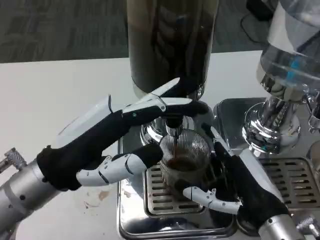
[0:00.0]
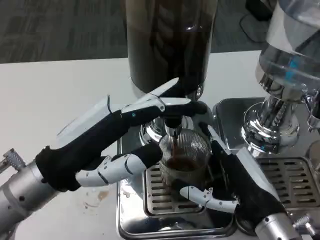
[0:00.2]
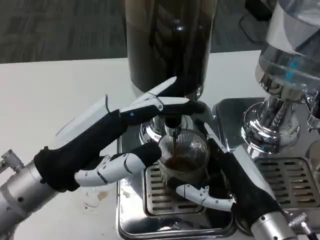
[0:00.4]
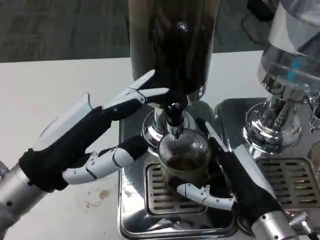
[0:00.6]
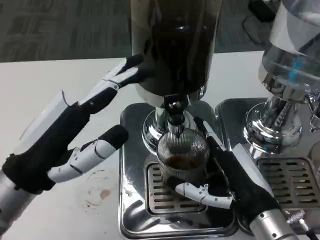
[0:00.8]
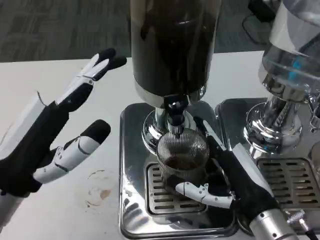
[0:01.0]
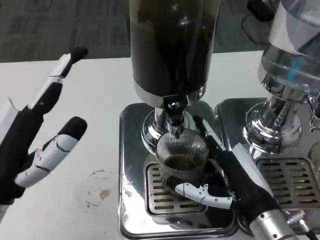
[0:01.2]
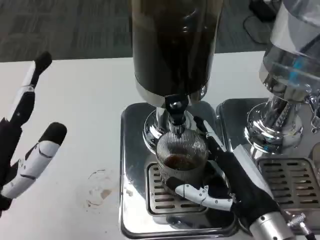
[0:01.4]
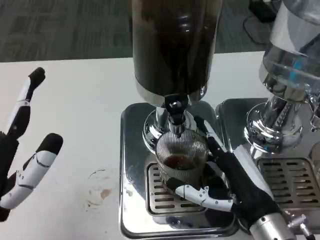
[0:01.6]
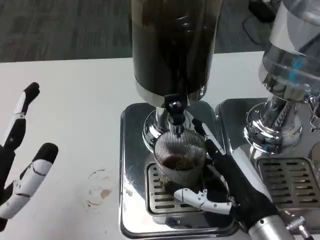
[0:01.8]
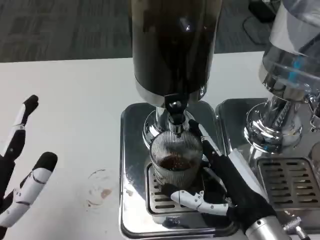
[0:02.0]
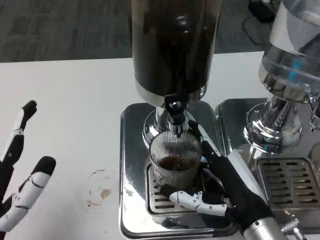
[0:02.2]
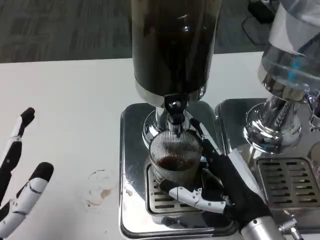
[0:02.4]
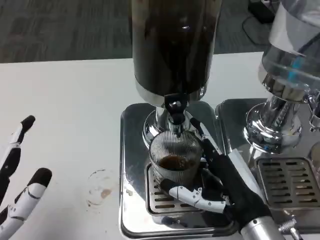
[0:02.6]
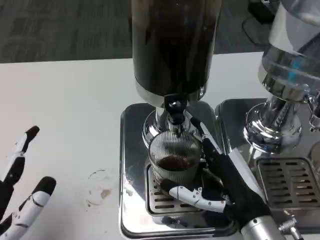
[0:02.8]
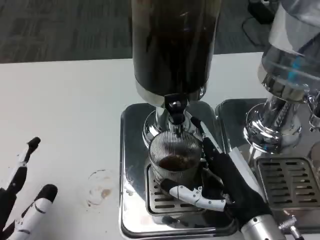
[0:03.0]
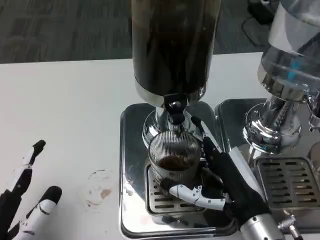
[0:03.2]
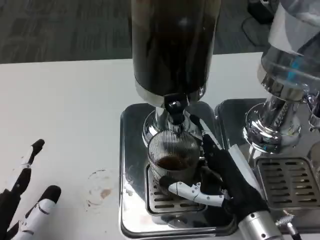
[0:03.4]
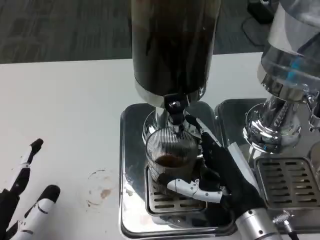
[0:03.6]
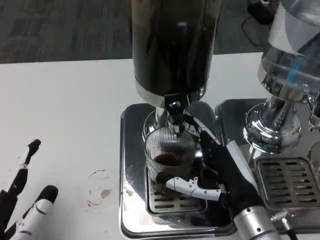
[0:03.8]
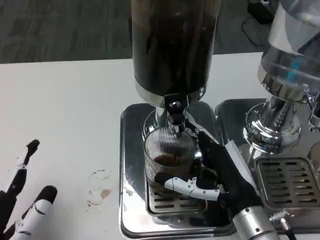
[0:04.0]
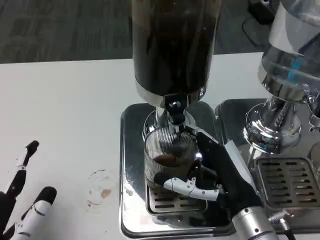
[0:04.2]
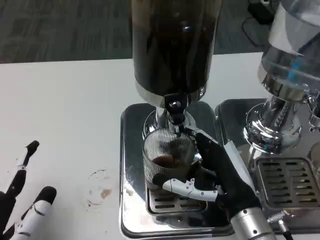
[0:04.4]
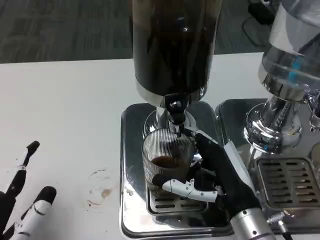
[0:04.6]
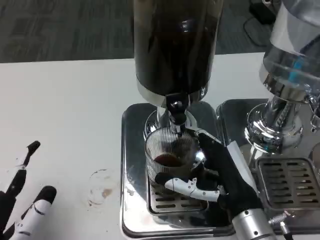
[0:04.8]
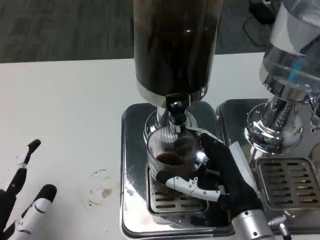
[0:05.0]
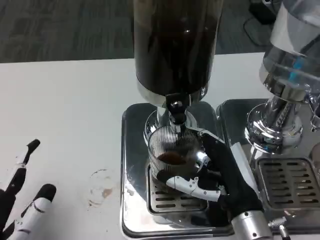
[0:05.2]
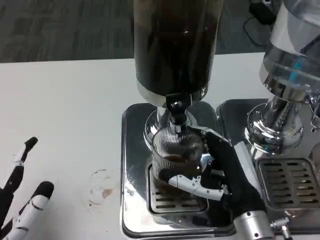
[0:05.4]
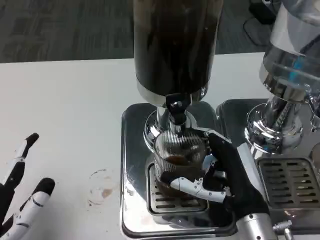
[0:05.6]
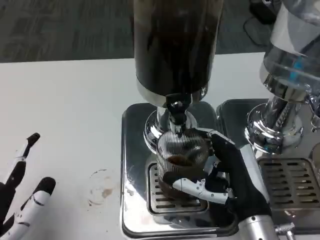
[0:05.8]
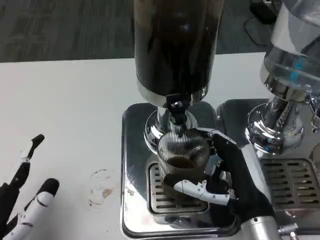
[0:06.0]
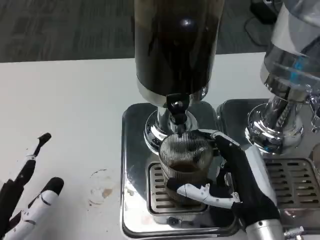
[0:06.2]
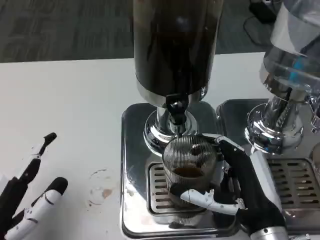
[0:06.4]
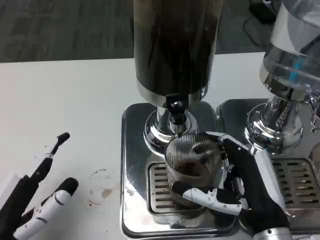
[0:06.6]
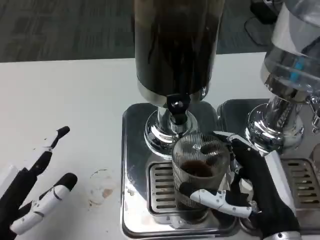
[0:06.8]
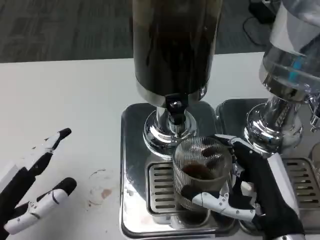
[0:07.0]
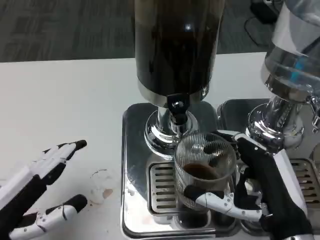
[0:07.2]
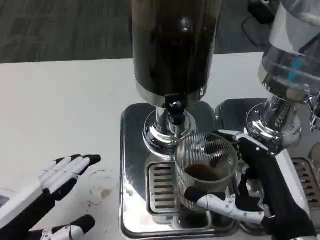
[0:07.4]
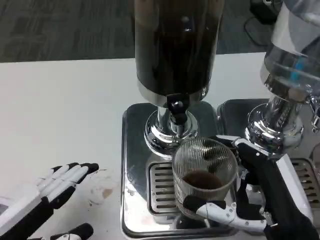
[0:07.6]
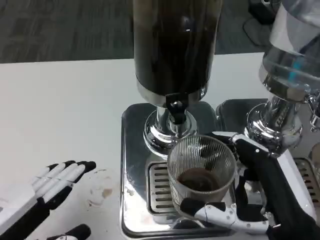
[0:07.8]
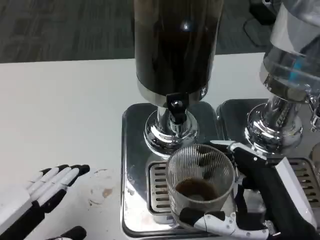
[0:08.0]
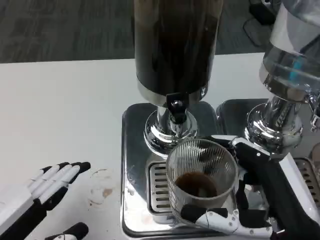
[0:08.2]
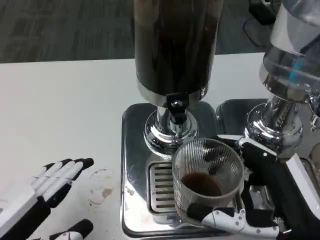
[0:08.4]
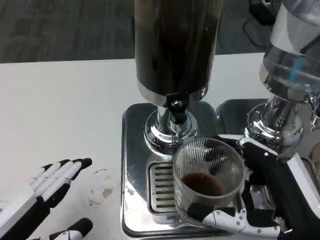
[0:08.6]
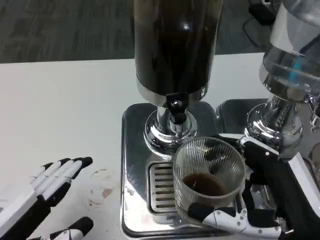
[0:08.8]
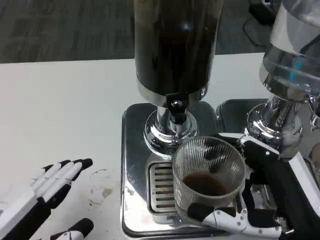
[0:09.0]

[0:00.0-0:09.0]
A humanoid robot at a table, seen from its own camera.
Task of the whole recording: Grasp the cup under the faucet to collect the drink, then remove the cup.
0:00.0 to 0:01.6: The left hand travels backward by some 10 cm.
0:01.6 to 0:03.0: The left hand ends up some 5 cm from where it was.
0:03.0 to 0:06.0: The hands move only a little.
0:06.0 to 0:07.6: The right hand heads backward, covering roughly 5 cm; the left hand changes place by approximately 5 cm.
0:07.6 to 0:09.0: The hands move only a little.

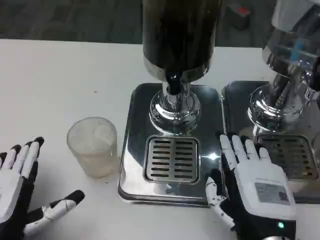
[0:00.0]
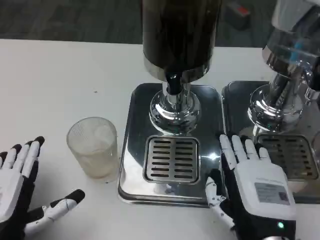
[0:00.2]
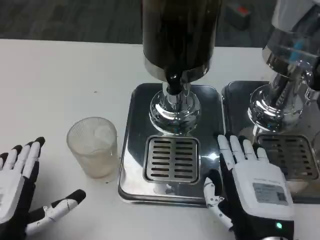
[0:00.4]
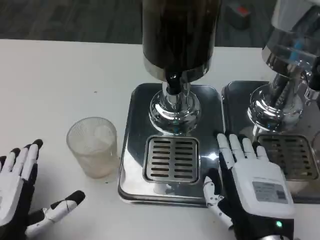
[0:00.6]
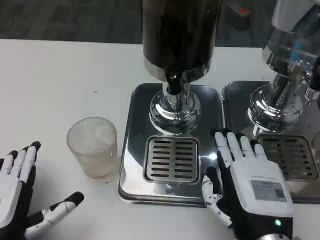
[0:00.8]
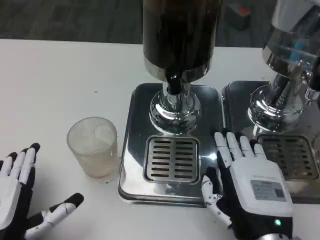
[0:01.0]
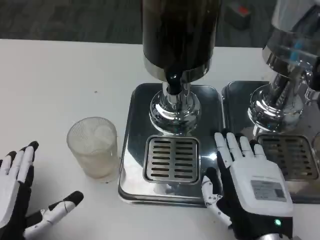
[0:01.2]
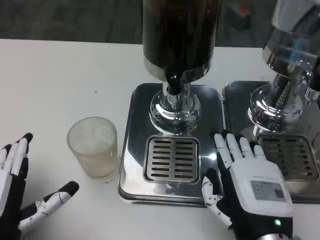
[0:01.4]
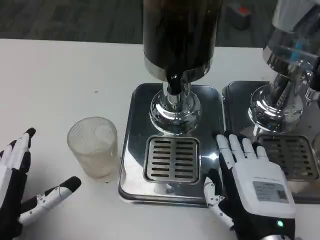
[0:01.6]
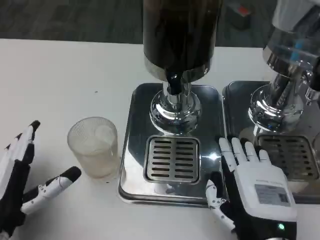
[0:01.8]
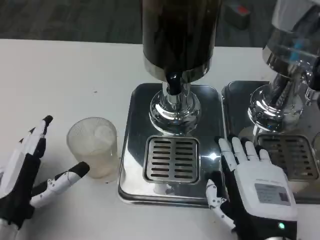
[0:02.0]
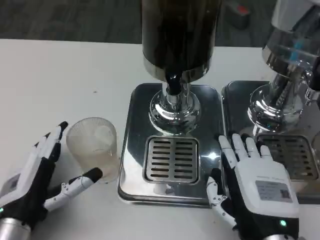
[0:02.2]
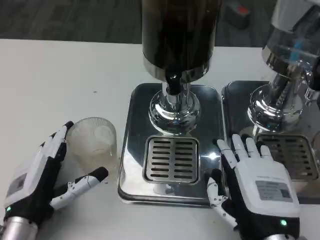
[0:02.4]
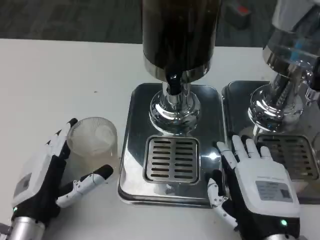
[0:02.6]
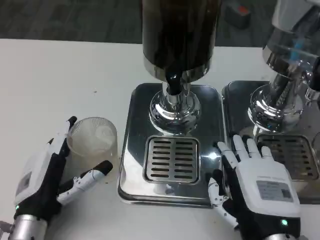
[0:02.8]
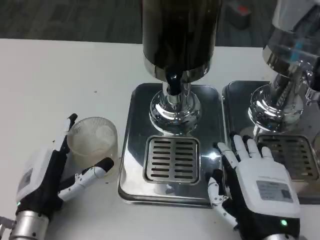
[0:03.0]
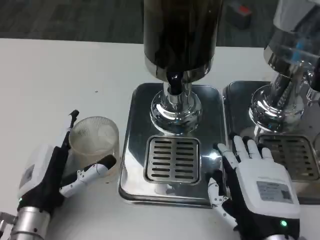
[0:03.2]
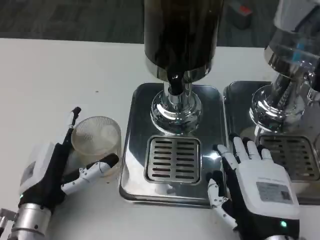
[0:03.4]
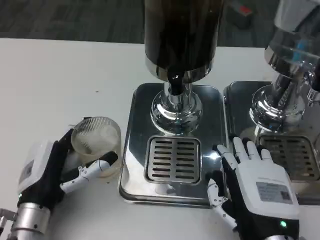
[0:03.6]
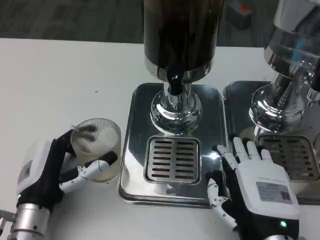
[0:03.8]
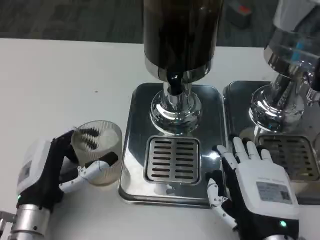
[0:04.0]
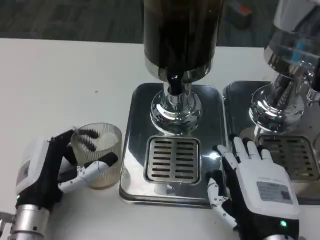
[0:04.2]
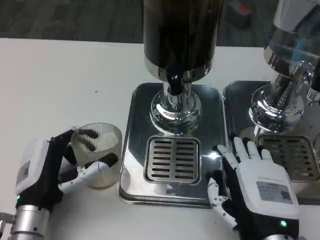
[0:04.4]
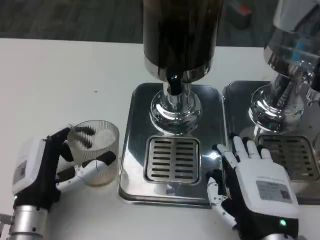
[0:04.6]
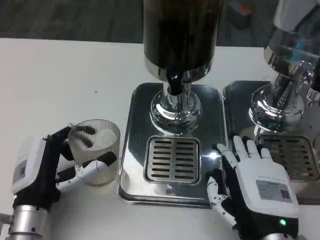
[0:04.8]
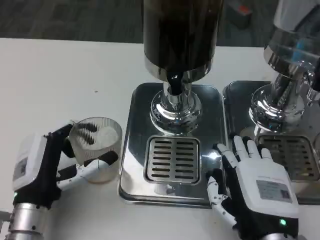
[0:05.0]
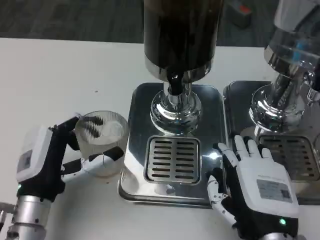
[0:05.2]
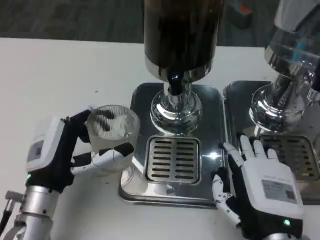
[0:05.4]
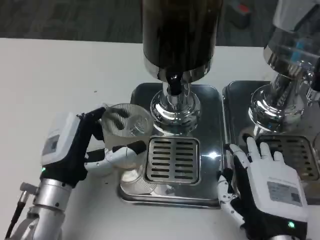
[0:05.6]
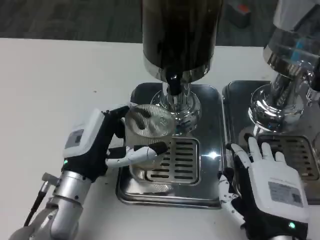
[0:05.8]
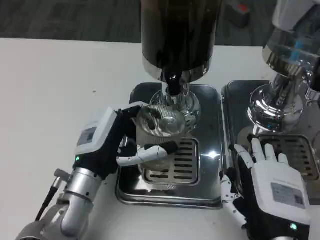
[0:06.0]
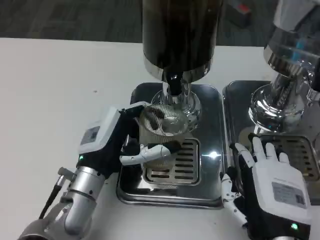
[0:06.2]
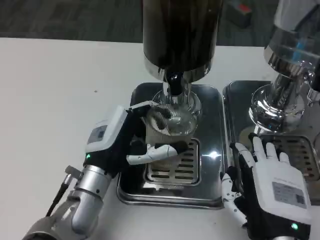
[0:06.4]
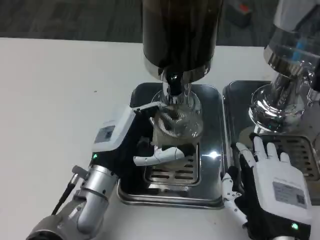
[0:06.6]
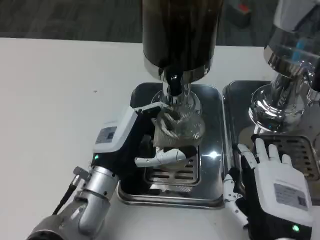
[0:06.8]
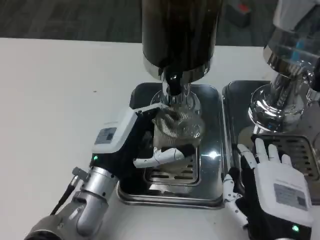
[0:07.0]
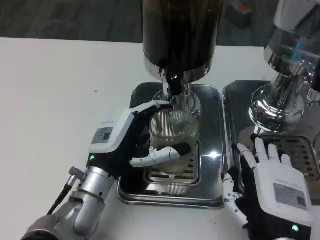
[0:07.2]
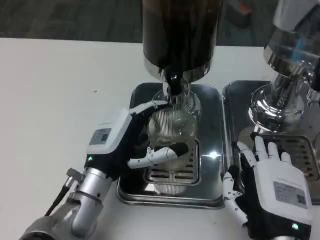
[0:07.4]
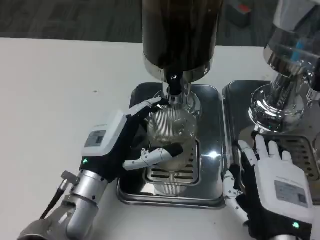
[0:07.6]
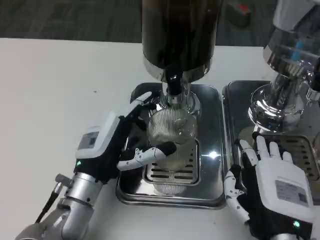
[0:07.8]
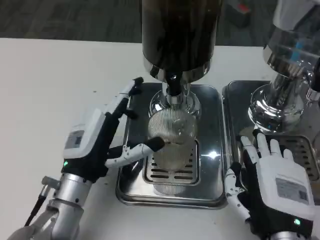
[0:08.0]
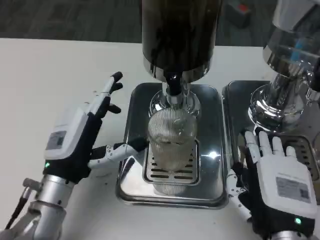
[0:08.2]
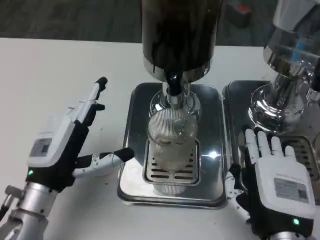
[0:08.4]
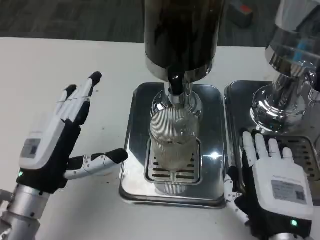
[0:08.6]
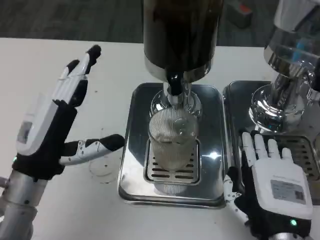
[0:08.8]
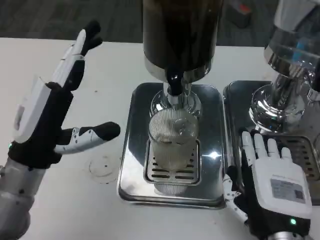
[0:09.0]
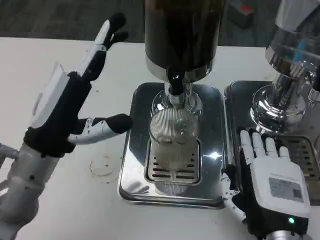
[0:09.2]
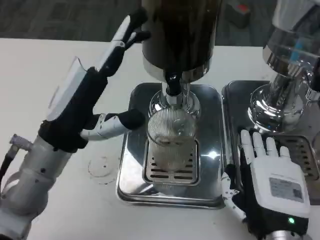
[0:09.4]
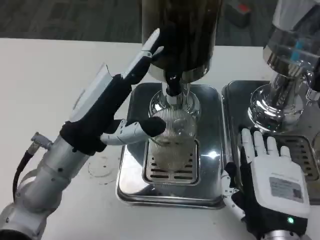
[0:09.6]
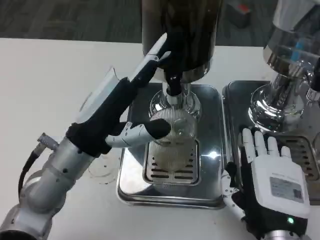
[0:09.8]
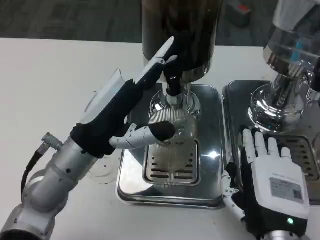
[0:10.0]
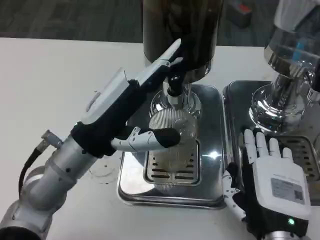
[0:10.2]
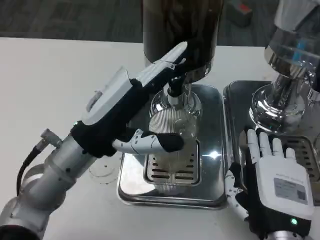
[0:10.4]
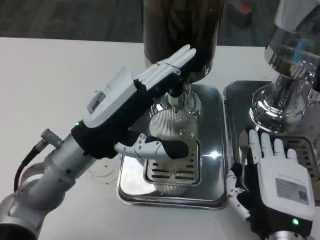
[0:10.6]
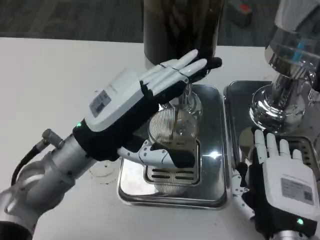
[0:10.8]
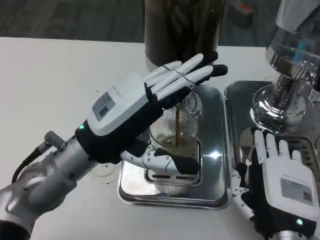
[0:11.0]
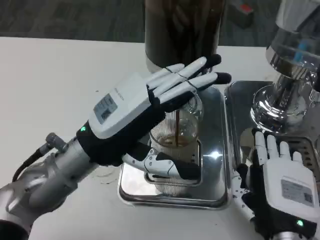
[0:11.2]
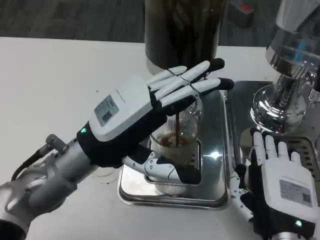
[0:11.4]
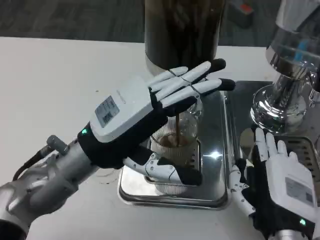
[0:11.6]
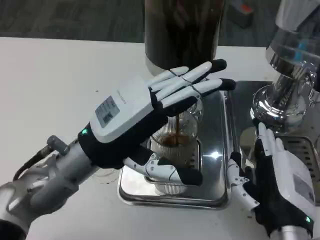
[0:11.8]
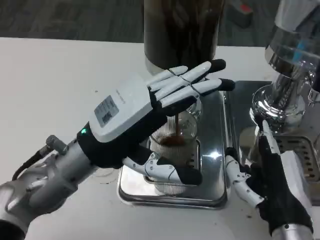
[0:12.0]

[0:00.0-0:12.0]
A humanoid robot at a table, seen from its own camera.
Task of the whole recording: Grasp the cup under the faucet to collect the drink, then remove the cup.
0:00.0 to 0:01.6: The hands stay close to where they were, moving slightly.
0:01.6 to 0:03.0: The left hand travels forward by approximately 5 cm.
0:03.0 to 0:04.4: The hands move only a little.
0:04.4 to 0:06.0: The left hand travels to the right and forward by approximately 10 cm.
0:06.0 to 0:07.6: There are only small adjustments of the hands.
0:07.6 to 0:09.0: The left hand moves upward and to the left, some 10 cm.
0:09.0 to 0:10.4: The left hand changes place by about 5 cm.

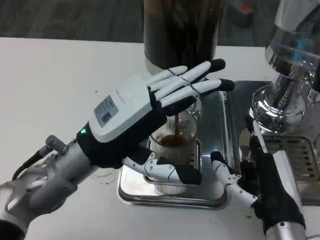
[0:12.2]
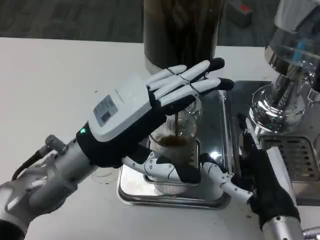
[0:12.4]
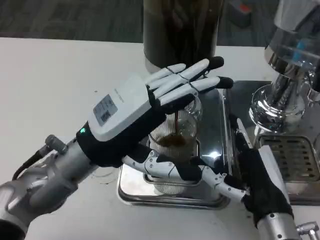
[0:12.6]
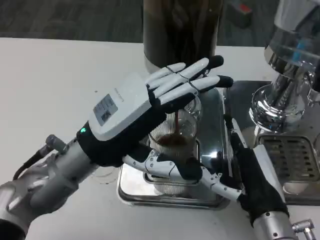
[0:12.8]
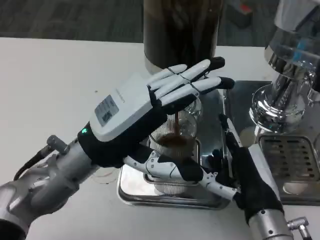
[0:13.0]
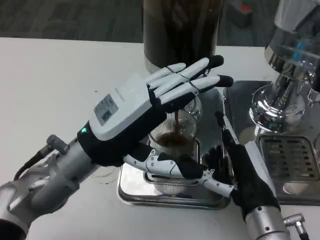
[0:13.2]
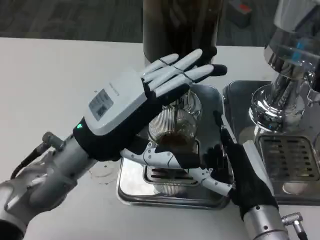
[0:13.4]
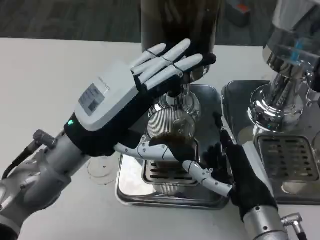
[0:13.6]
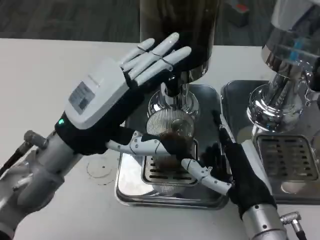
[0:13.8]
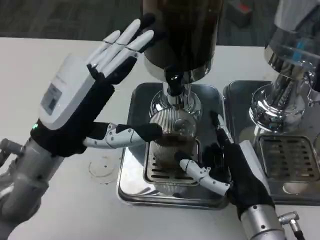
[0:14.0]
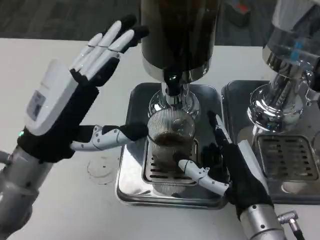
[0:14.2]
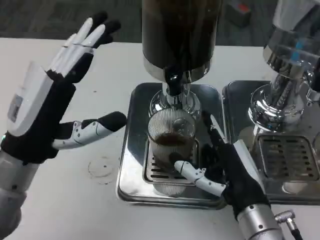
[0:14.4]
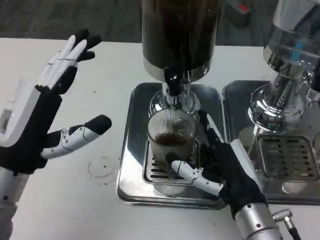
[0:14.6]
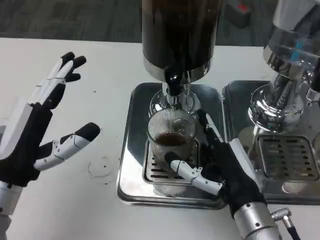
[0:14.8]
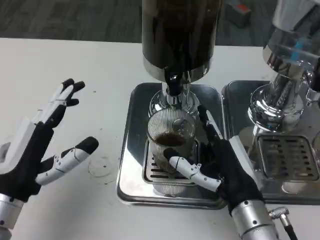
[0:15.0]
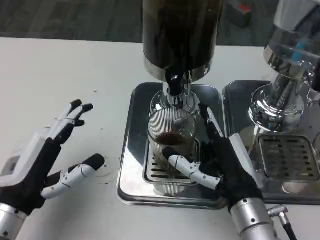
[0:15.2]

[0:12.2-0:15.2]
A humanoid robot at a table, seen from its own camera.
Task of the whole recording: Grasp the cup under the faucet to collect the drink, then remove the cup.
0:13.8 to 0:15.2: The left hand is displaced downward, to the left and backward by some 15 cm.
